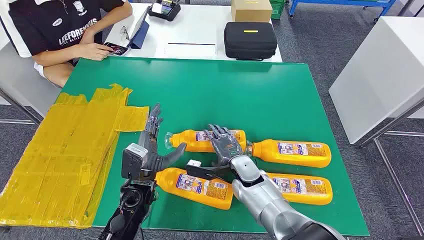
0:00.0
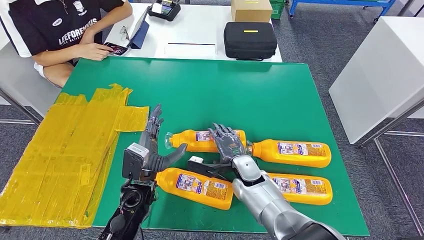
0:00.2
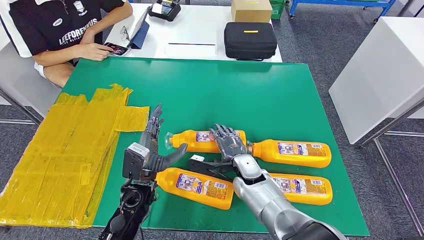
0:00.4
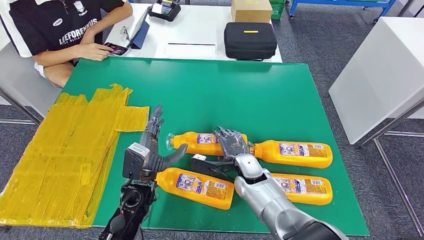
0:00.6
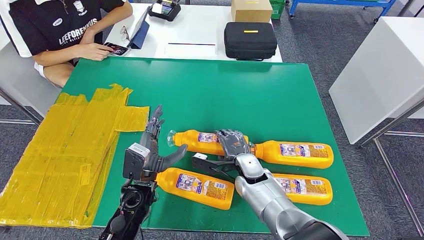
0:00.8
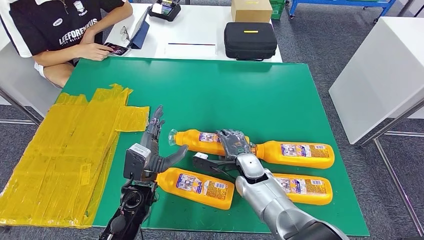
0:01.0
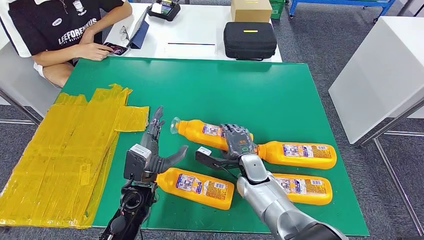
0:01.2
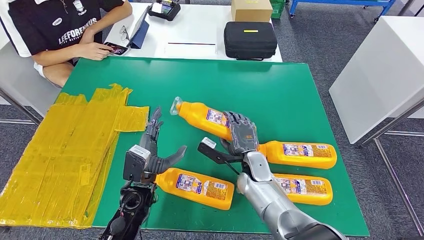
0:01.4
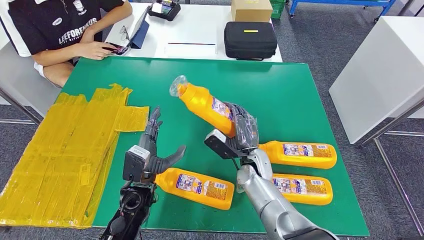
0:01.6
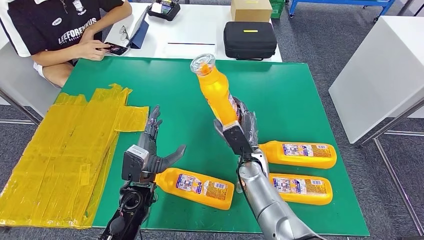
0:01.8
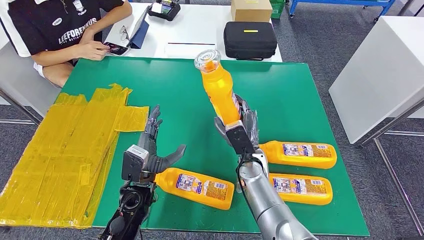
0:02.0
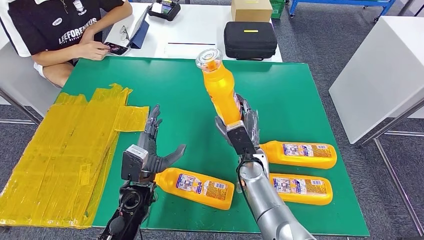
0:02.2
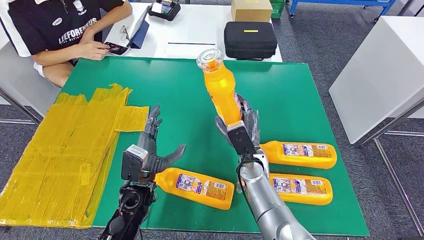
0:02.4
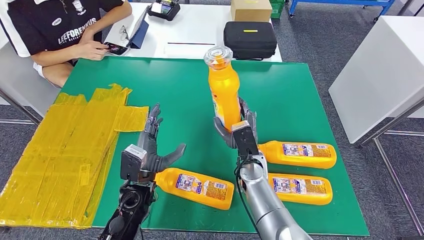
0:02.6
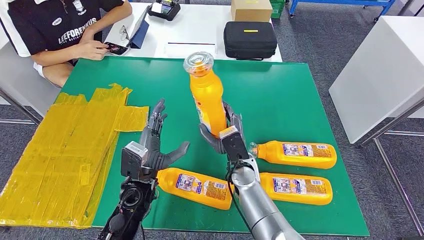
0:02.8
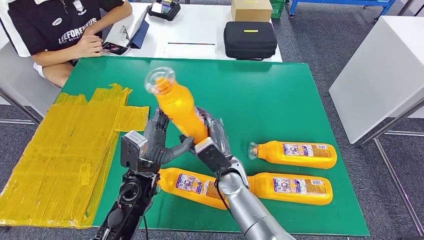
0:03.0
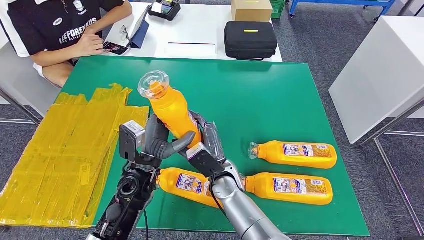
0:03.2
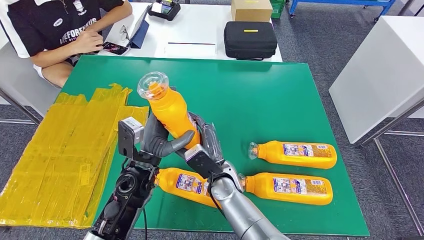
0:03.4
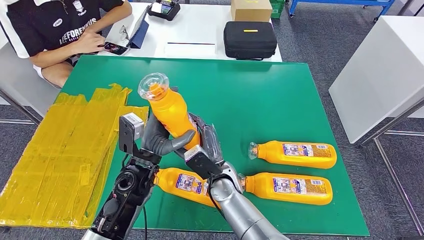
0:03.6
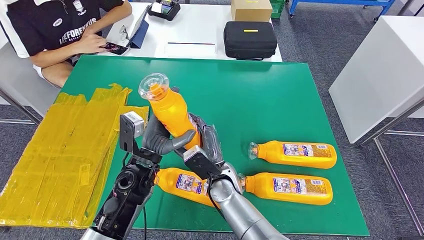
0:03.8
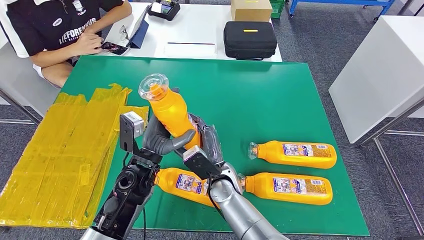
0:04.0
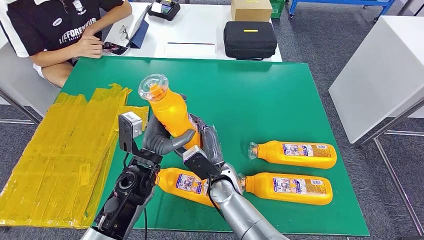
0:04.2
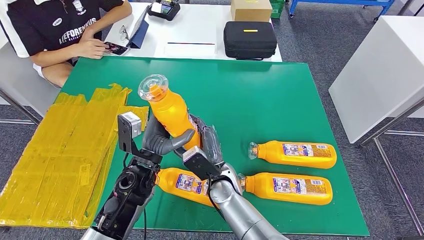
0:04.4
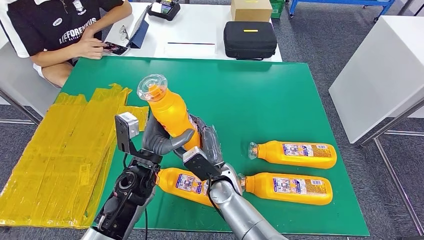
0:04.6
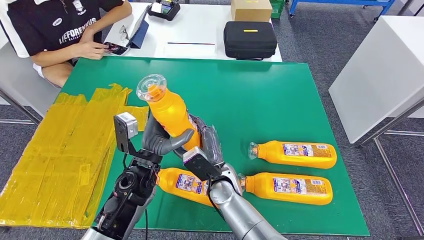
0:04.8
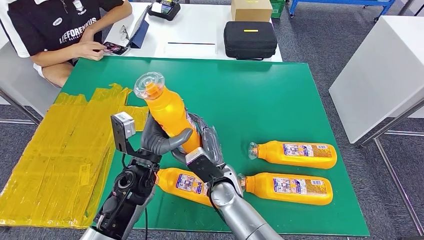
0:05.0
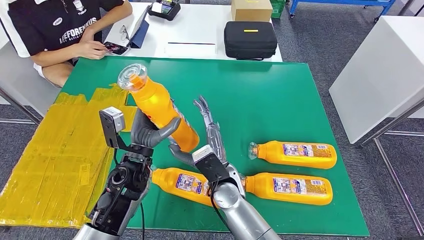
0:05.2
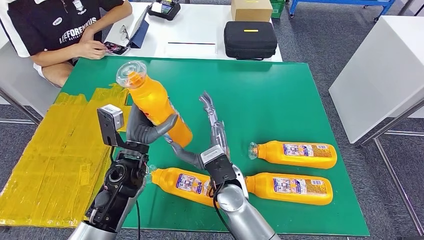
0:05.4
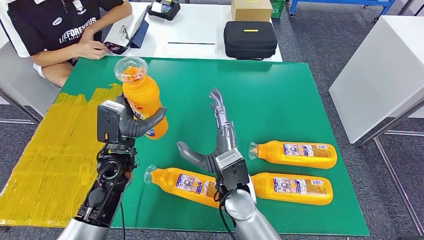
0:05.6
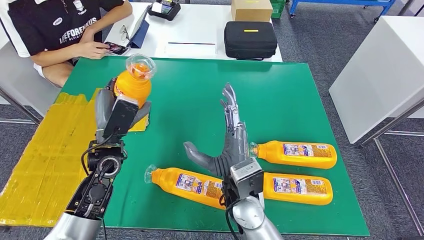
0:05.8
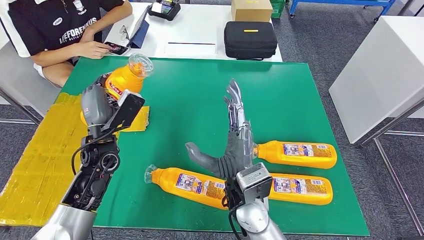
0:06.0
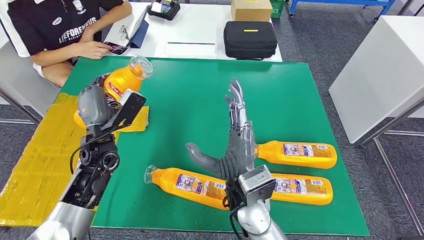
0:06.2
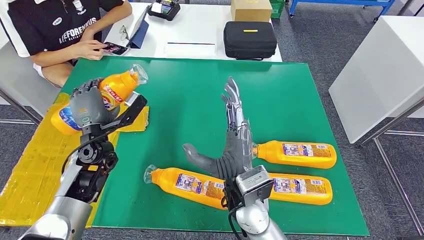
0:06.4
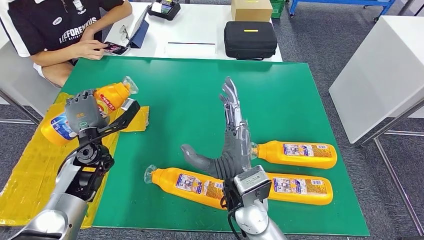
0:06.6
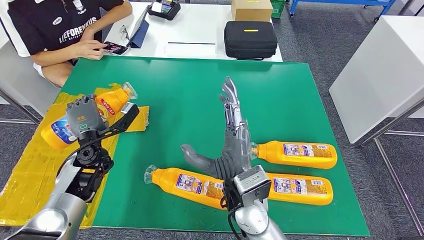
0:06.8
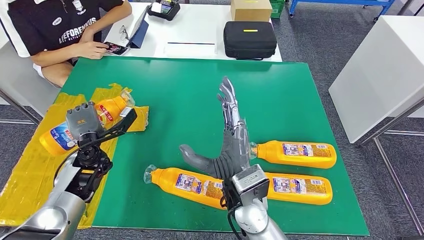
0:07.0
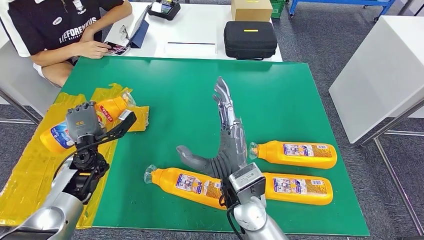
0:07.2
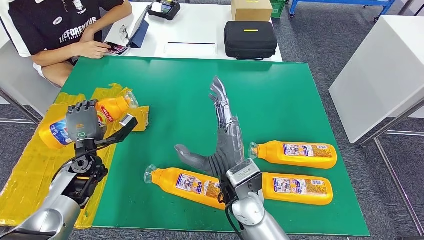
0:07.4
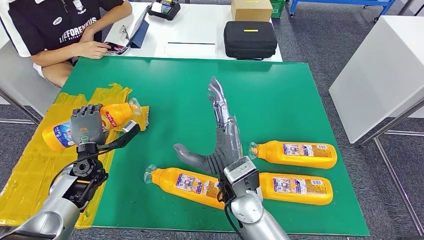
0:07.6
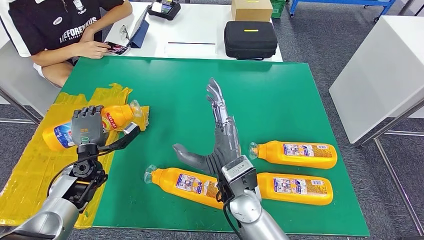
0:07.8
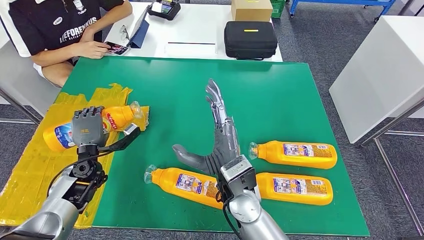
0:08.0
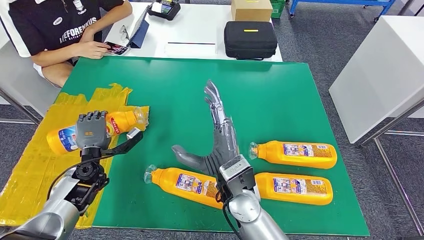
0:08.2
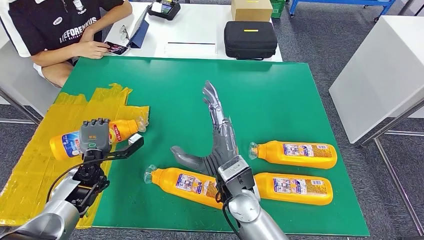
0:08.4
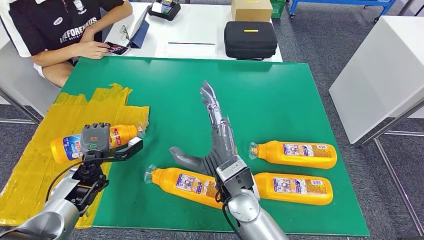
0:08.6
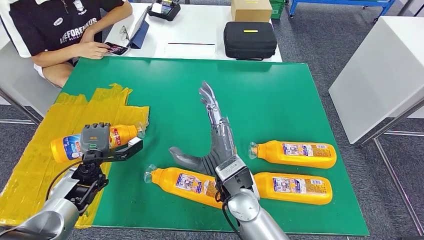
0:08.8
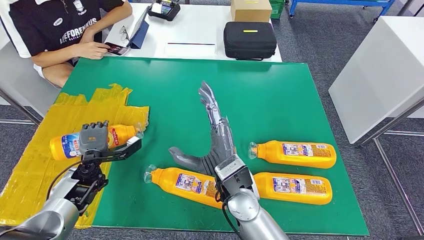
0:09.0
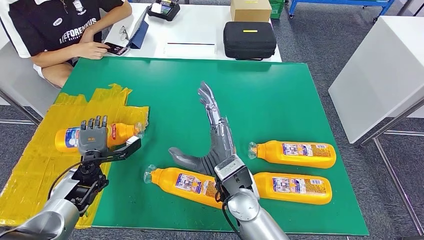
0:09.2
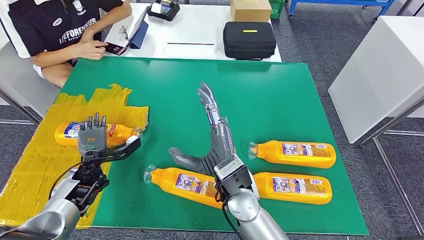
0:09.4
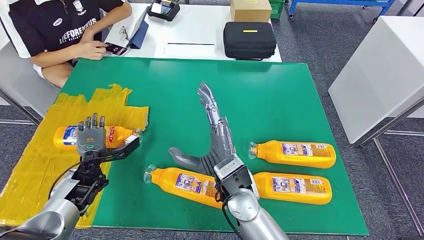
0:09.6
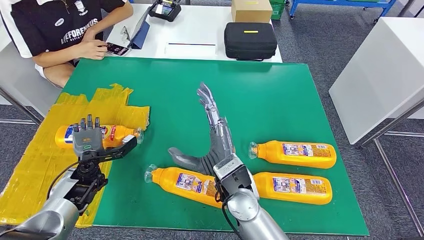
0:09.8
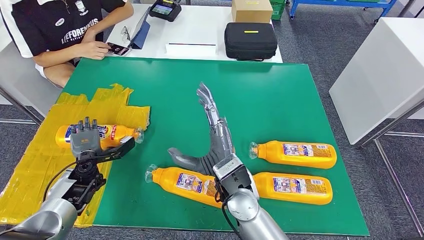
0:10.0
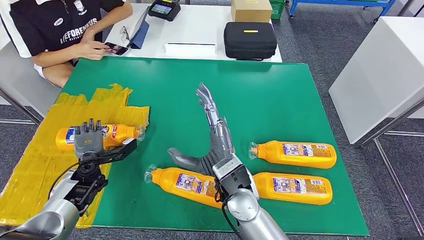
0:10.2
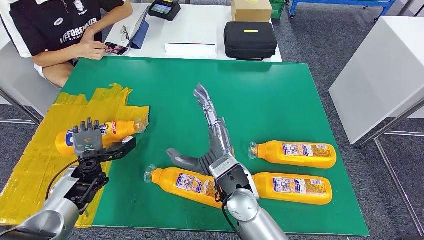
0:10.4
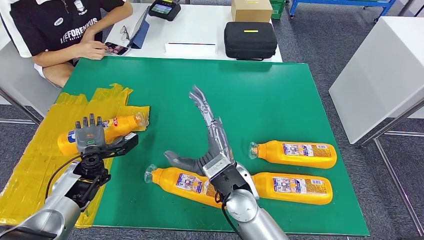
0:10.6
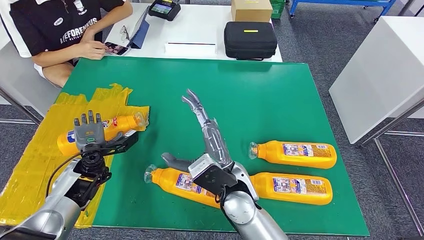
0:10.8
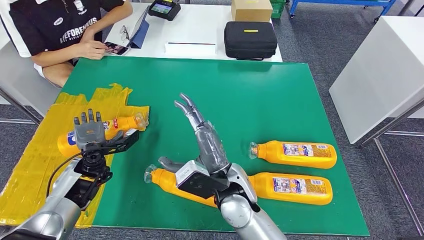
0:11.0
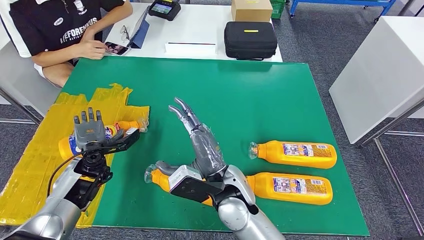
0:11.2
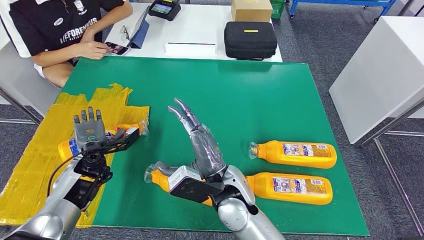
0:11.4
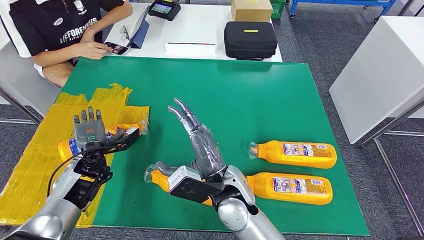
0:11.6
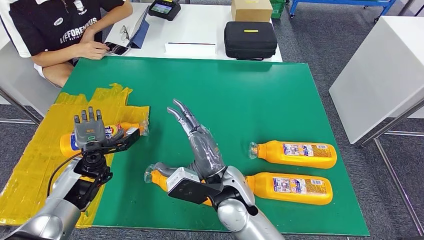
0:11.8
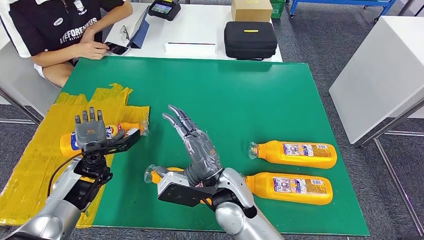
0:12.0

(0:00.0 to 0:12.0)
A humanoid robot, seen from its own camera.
Step, 0:00.0 - 0:01.8: Take the bottle from the table.
Step, 0:04.8 - 0:09.6: Flip the bottle to face forward.
0:01.6 - 0:03.0: The right hand heads to the left, covering some 5 cm.
0:03.0 - 0:04.4: The hands stay close to where they were, moving slightly.
0:06.0 - 0:07.6: The left hand shifts approximately 15 cm downward and to the left.
0:09.0 - 0:10.4: The hands make only small movements.

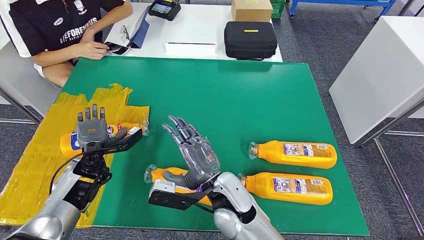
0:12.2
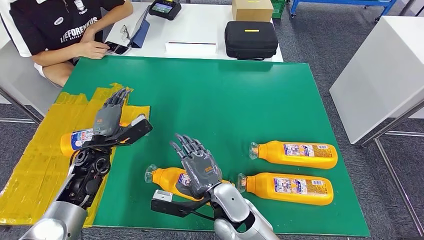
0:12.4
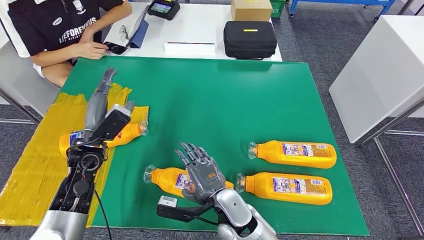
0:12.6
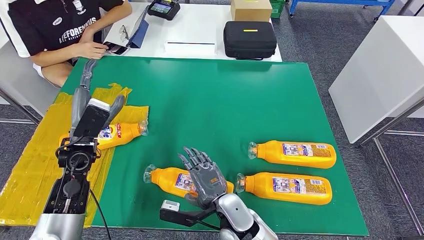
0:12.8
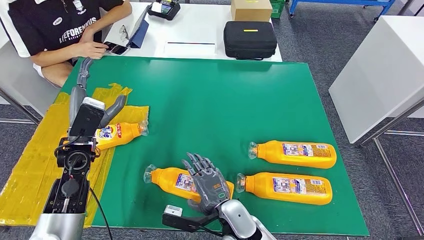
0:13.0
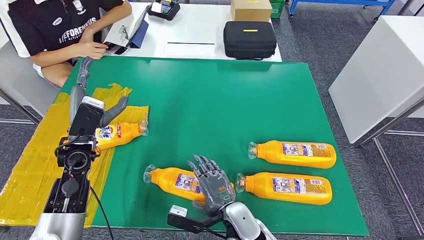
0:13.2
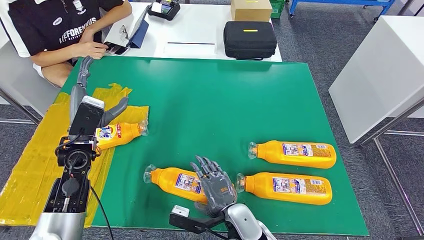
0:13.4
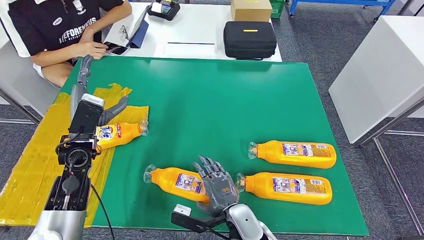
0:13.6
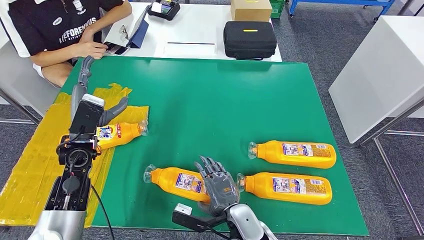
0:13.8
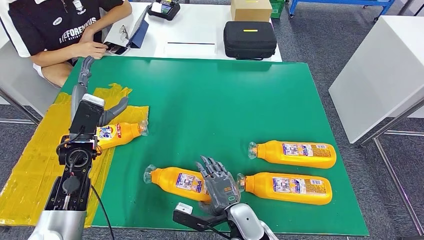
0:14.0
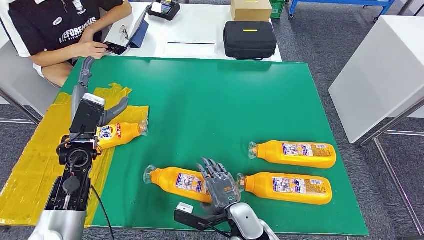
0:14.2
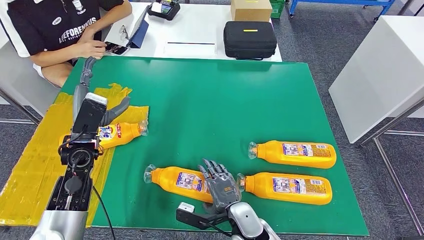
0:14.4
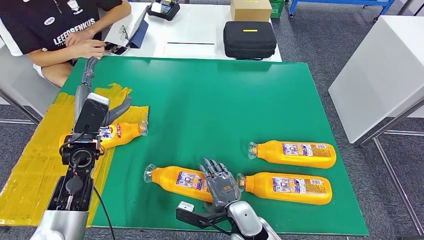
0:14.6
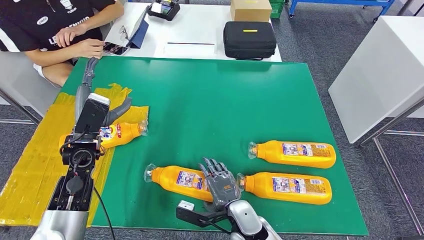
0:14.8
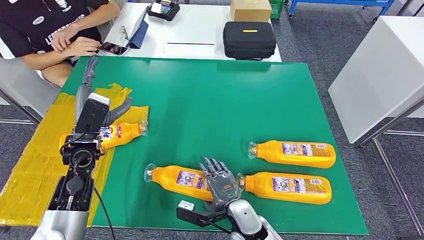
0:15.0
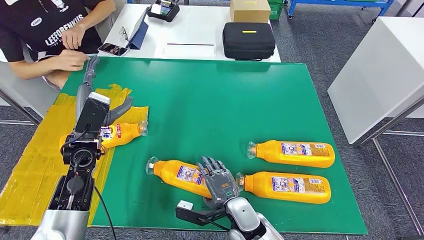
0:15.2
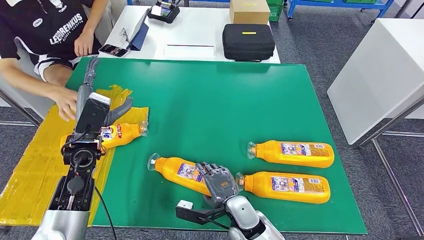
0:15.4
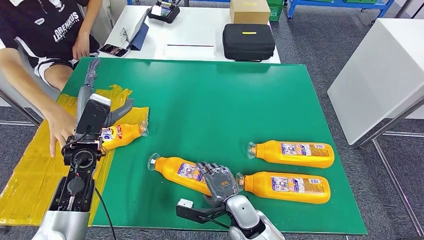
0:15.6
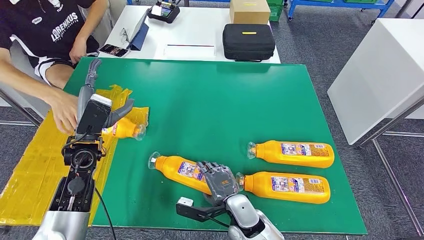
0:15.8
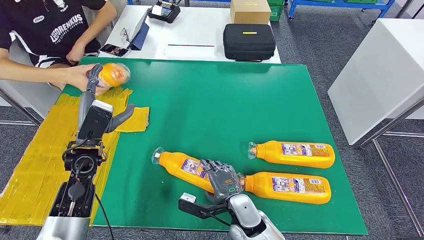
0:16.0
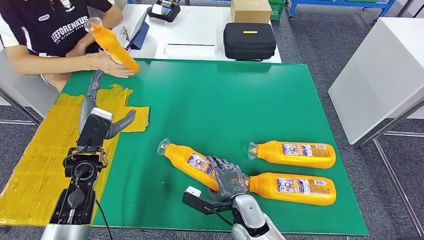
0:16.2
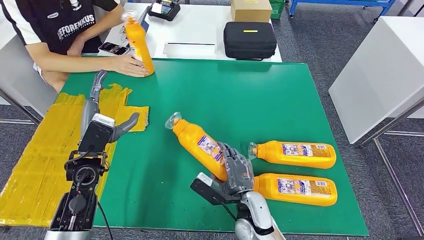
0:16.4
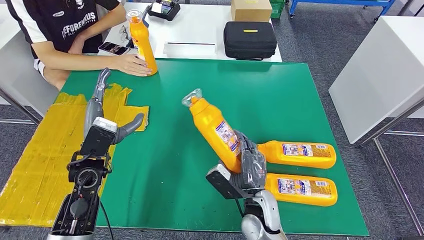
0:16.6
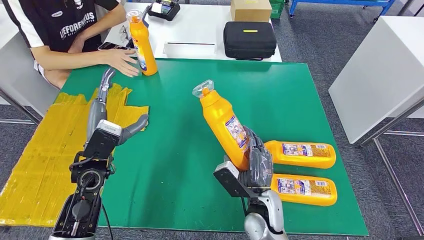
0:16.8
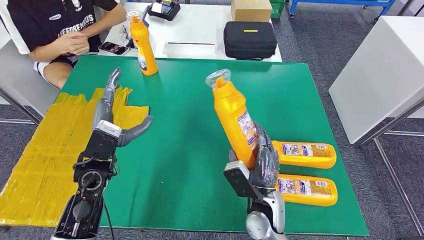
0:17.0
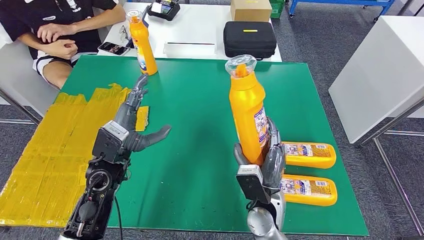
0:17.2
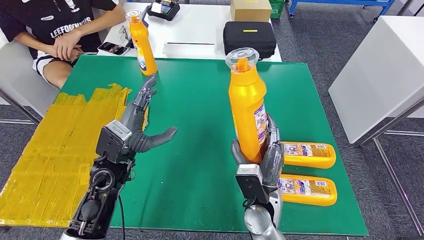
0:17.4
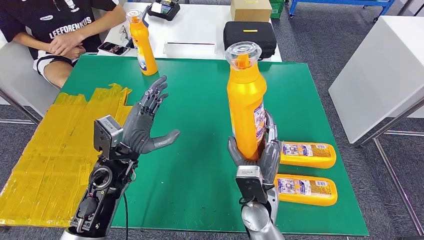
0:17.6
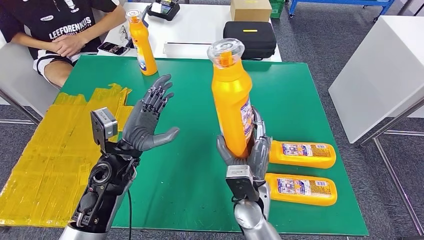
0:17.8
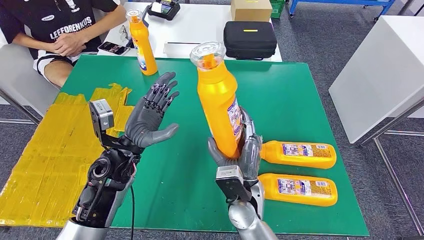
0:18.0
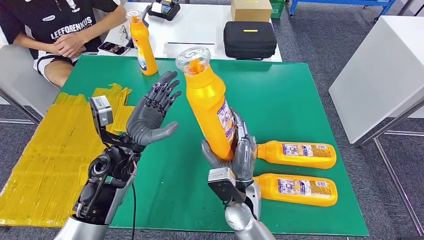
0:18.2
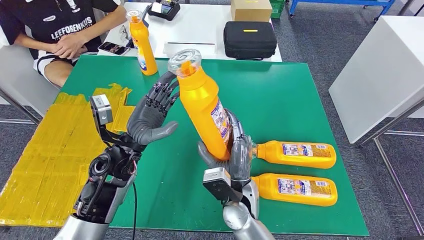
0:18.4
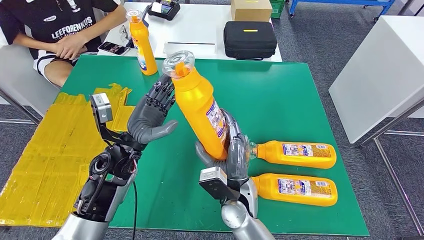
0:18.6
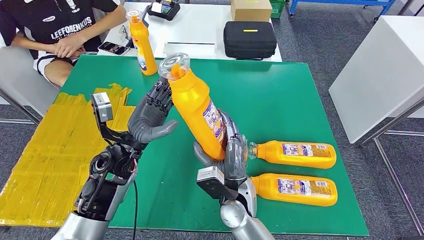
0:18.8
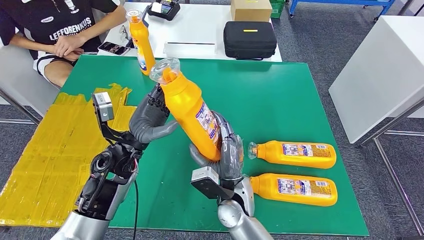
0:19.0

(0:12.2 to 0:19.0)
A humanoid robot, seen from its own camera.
Step, 0:13.8 - 0:16.6: Pick up the bottle from the table.
0:12.2 - 0:13.6: The right hand moves downward and backward, roughly 10 cm, while the left hand heads upward, covering approximately 10 cm.
0:13.6 - 0:15.0: The hands stay close to where they were, moving slightly.
0:17.6 - 0:19.0: The right hand travels to the left by approximately 5 cm.
